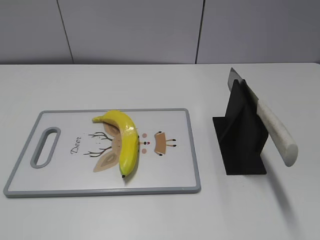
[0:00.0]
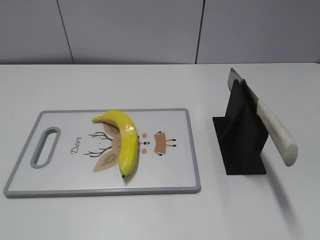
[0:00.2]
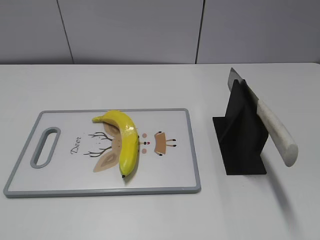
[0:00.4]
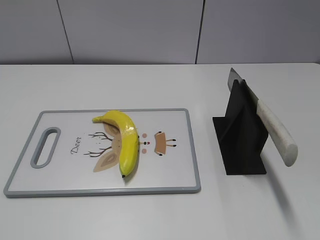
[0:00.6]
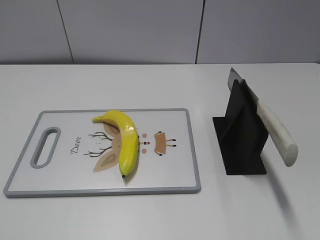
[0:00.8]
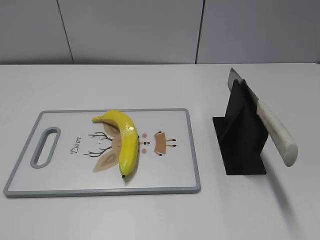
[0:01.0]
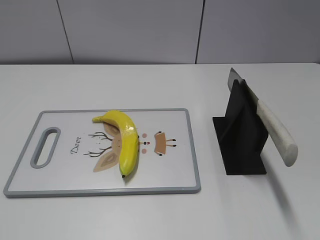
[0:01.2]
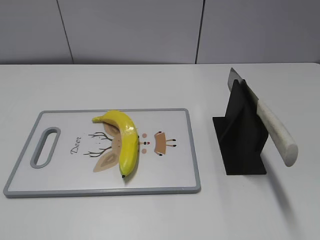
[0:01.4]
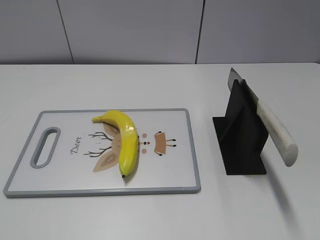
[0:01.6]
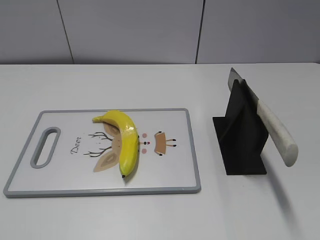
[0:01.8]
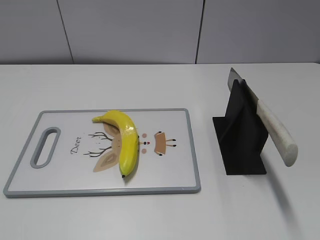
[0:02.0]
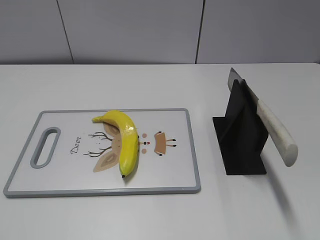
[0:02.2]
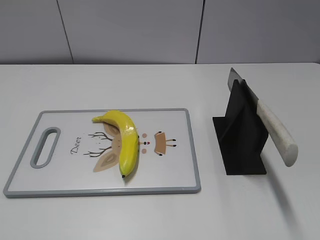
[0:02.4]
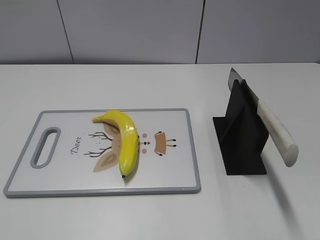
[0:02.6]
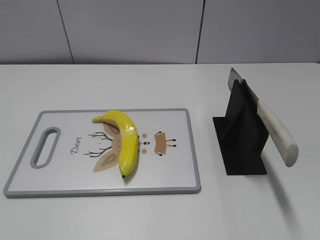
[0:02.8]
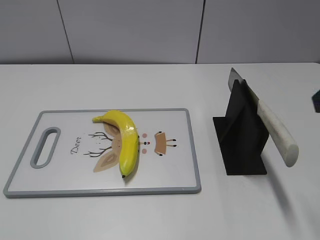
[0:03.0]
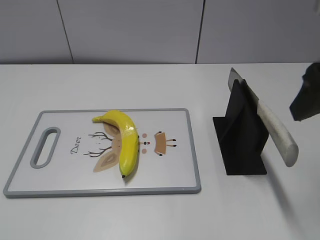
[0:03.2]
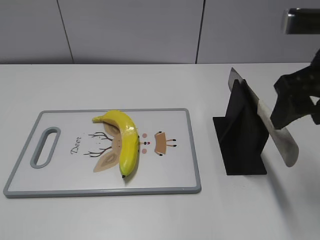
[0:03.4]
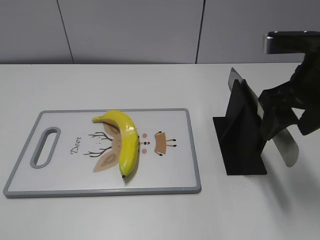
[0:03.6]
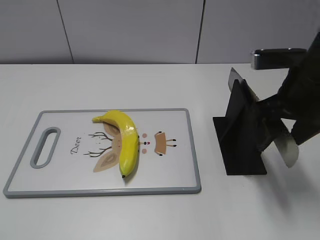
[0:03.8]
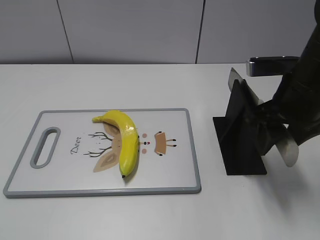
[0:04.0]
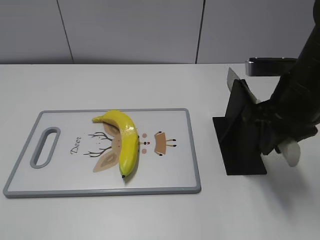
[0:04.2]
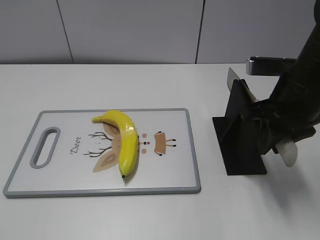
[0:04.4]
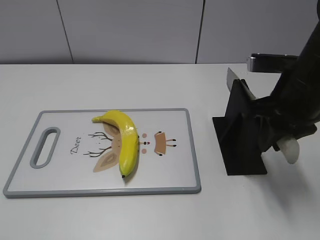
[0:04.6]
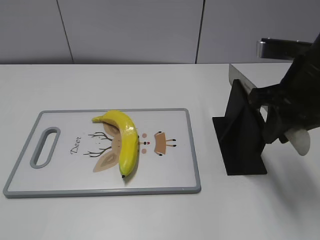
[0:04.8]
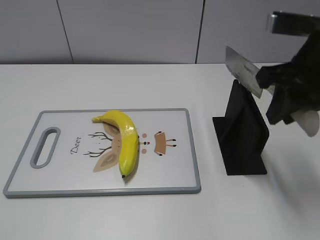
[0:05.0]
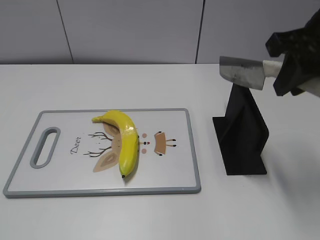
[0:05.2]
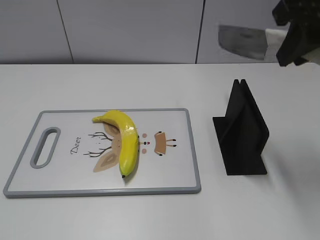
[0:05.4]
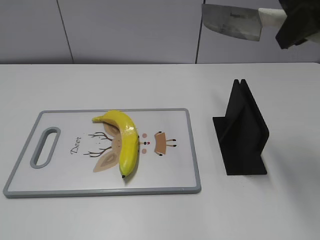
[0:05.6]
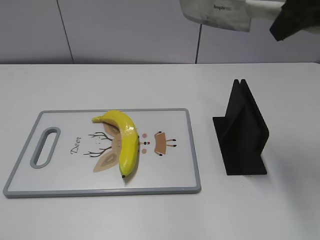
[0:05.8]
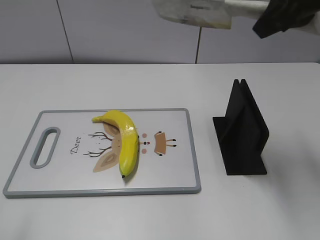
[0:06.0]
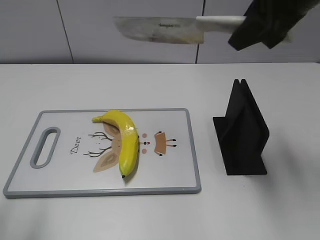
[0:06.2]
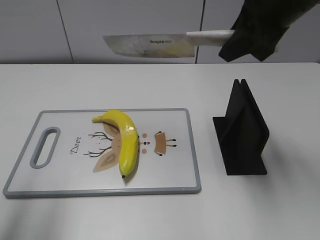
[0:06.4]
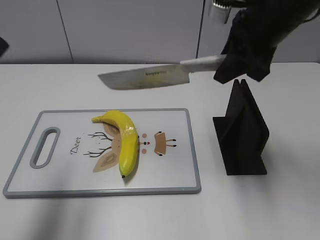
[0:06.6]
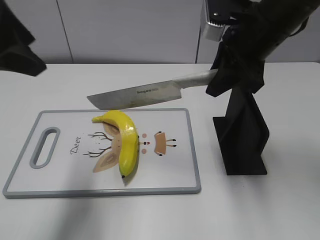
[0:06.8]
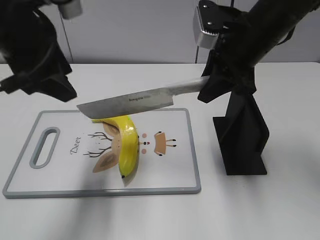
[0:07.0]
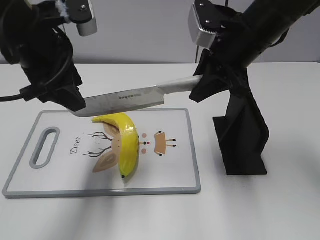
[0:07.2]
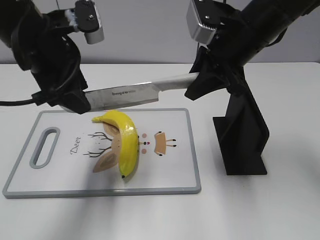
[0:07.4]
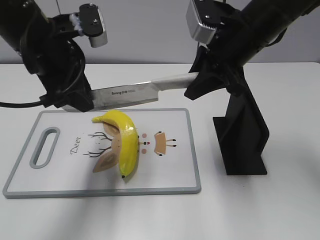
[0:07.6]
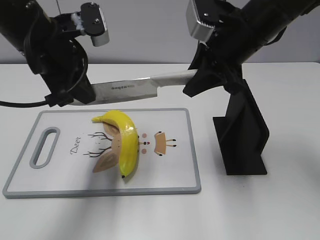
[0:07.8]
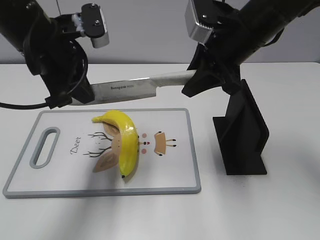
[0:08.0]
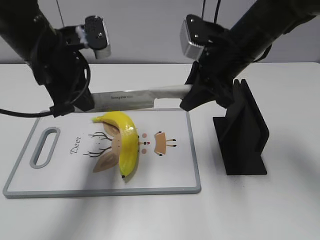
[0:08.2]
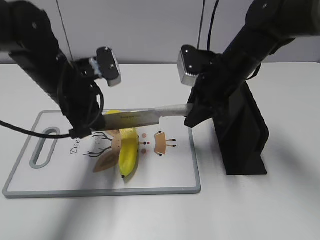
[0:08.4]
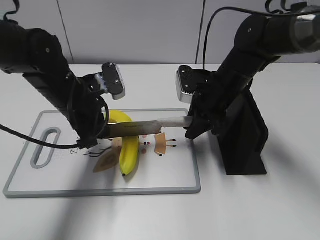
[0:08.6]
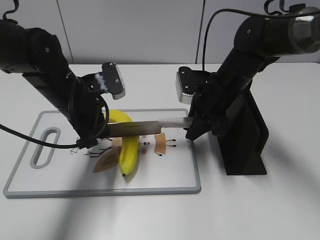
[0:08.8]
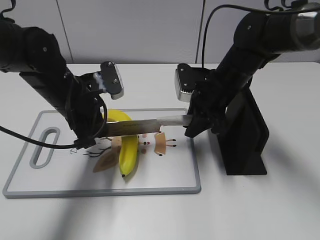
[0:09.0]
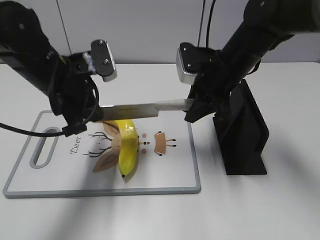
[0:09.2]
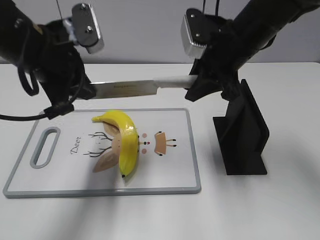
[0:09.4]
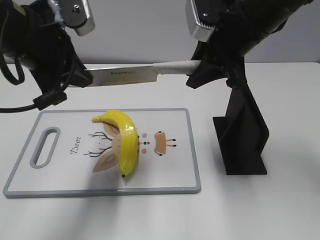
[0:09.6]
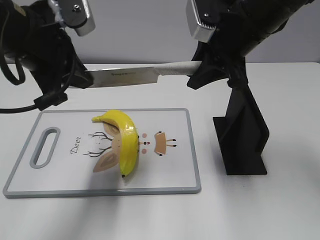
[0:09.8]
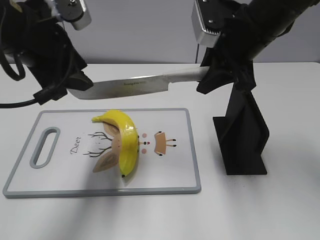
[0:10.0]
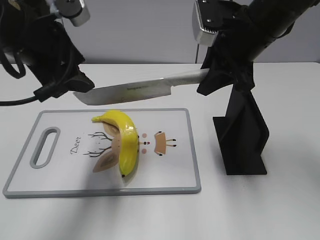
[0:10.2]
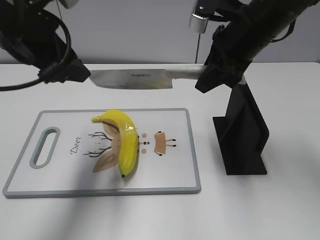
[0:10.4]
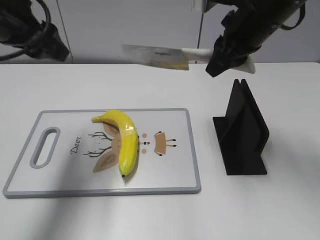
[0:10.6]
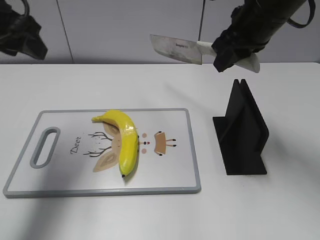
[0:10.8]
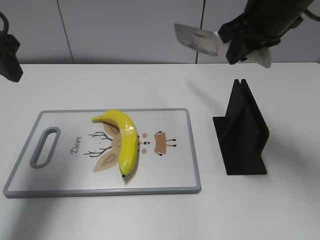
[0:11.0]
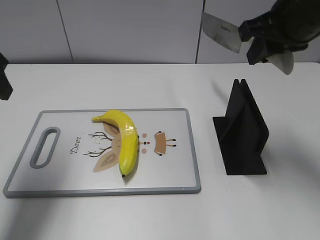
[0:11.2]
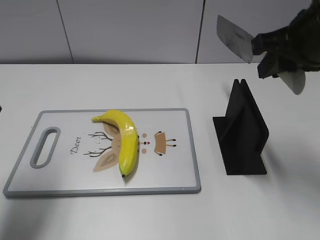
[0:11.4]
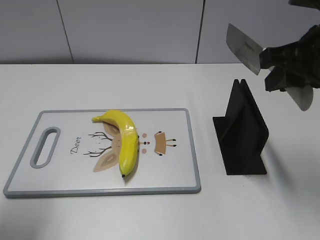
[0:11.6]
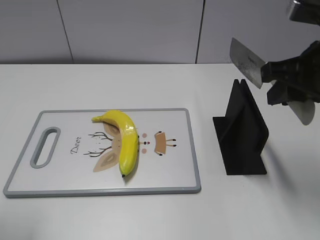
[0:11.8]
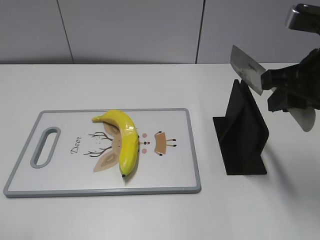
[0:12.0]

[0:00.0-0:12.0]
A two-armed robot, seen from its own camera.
Task of the whole recording: cut plastic banana.
Step, 0:00.0 to 0:05.2: Grab the knife handle with your right hand.
Step, 0:05.4 to 0:09.4: Lift the knife with your right hand.
Step, 0:09.8 to 0:10.8: Cut the banana with your right hand.
0:03.0 to 0:04.4: The right gripper heads downward, forward and to the left, covering some 15 cm, and closes up.
0:04.4 to 0:06.0: The right gripper moves upward, about 15 cm; the left gripper goes some 10 cm forward and upward.
0:06.0 to 0:07.6: The right gripper is displaced downward and to the left by approximately 10 cm. Meanwhile the left gripper heads forward and to the right, covering approximately 30 cm.
0:07.6 to 0:09.0: The grippers both shift downward by some 10 cm. The left gripper closes.
0:09.0 to 0:10.4: The two grippers go roughly 15 cm upward. The left gripper opens.
0:10.4 to 0:12.0: The left gripper travels backward and to the left by about 25 cm, while the right gripper goes approximately 10 cm backward and to the right.

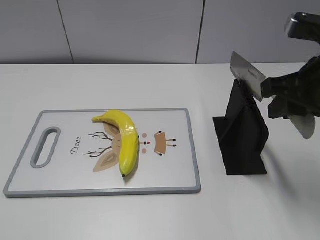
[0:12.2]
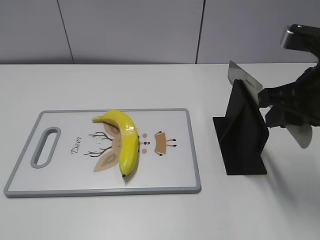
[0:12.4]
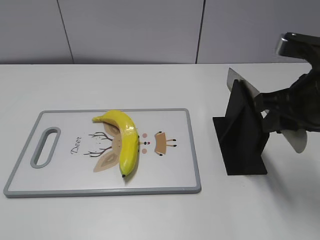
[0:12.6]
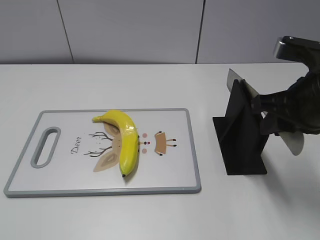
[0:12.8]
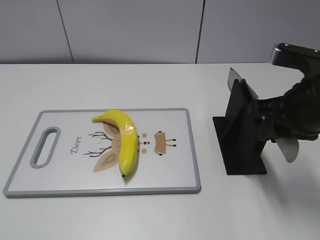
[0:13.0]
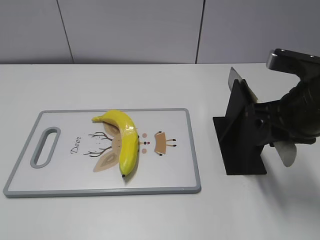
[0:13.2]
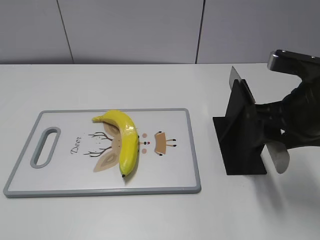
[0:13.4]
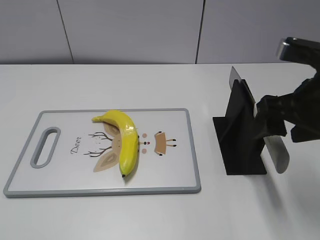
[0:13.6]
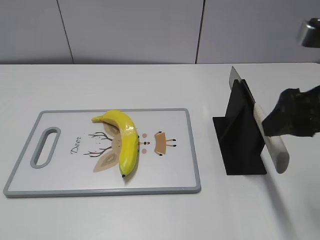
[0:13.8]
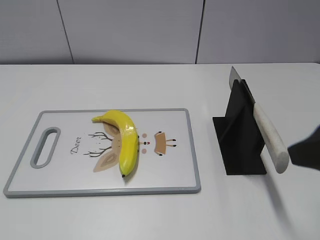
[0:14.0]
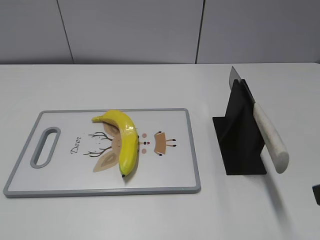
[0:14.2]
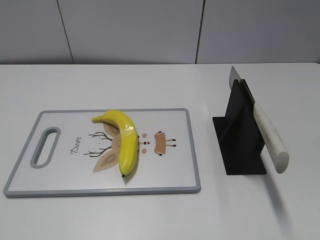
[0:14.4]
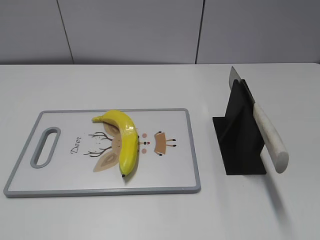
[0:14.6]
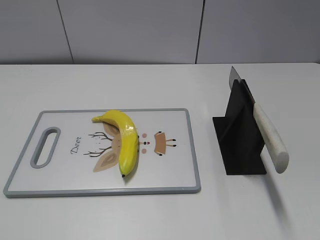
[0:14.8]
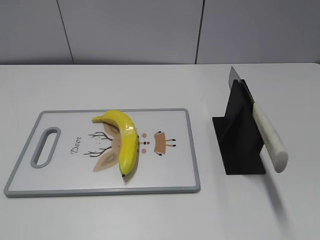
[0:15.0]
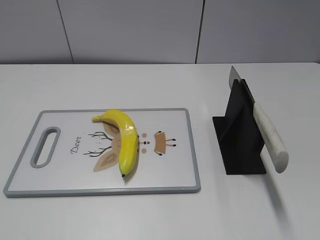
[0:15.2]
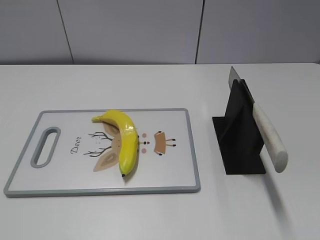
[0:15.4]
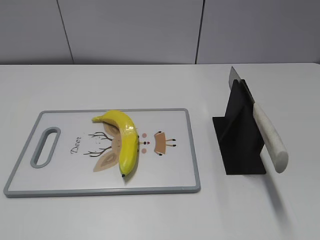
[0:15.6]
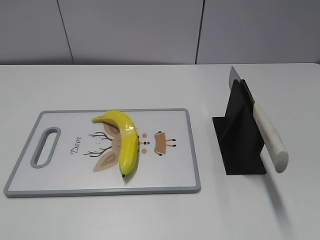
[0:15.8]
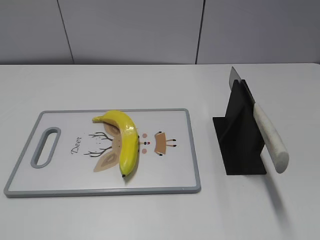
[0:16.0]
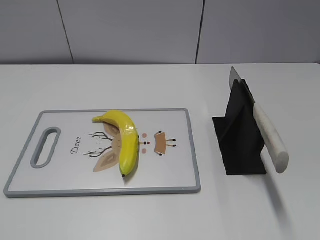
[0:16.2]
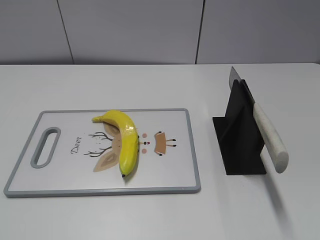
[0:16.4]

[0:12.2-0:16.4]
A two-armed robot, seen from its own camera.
Task of the whole recording: cut plastic banana.
Step, 0:12.4 to 0:16.4: Place the knife on the storage rack with your right hand.
0:12.2 to 0:13.6: The right gripper opens up.
0:13.6 to 0:15.0: The right gripper moves backward, some 25 cm.
